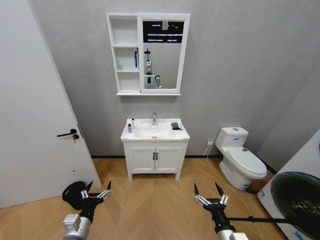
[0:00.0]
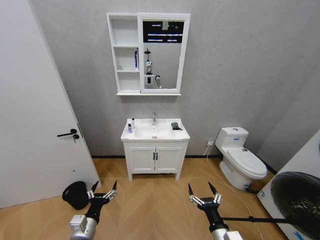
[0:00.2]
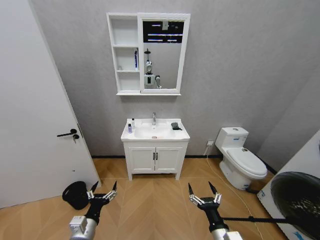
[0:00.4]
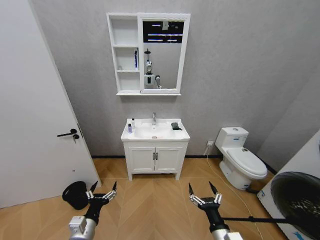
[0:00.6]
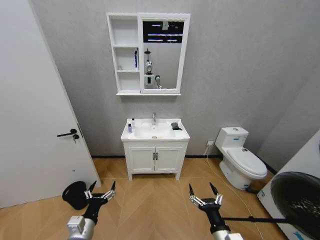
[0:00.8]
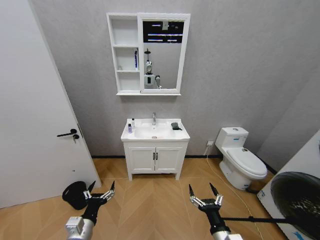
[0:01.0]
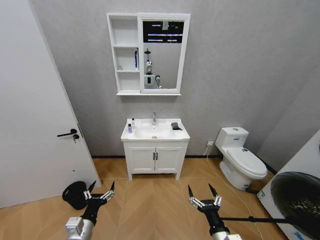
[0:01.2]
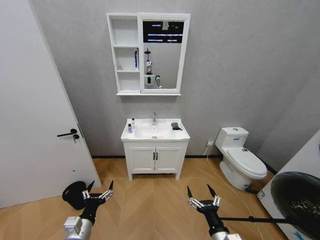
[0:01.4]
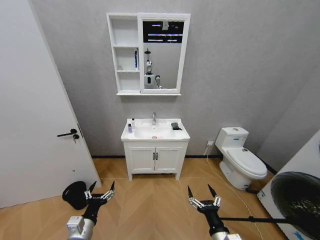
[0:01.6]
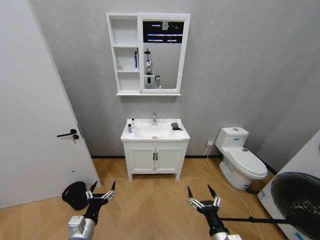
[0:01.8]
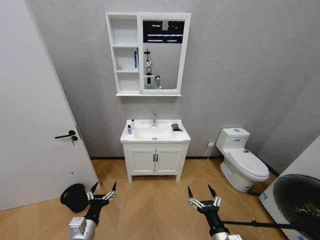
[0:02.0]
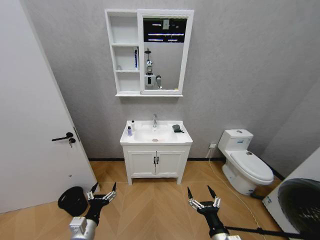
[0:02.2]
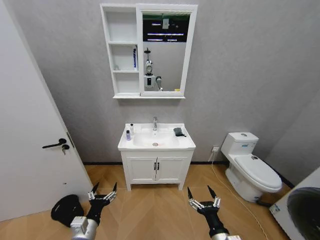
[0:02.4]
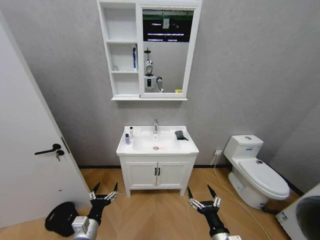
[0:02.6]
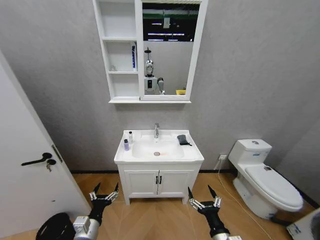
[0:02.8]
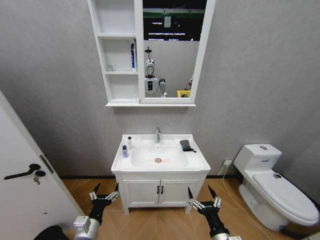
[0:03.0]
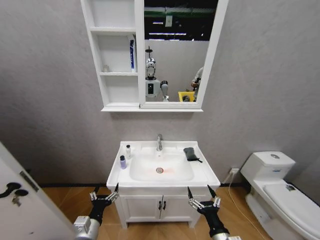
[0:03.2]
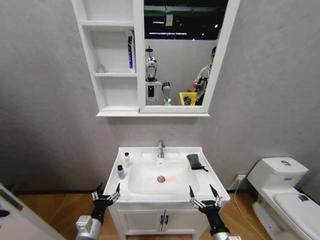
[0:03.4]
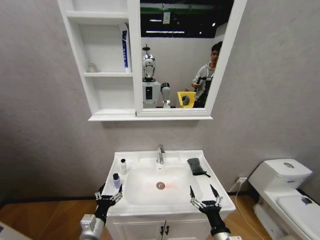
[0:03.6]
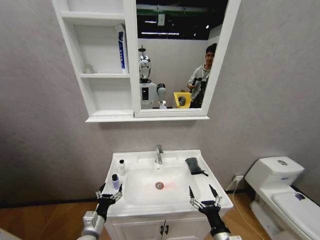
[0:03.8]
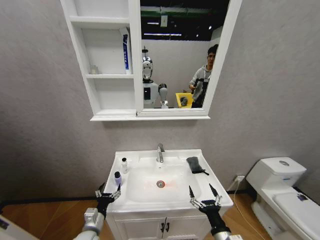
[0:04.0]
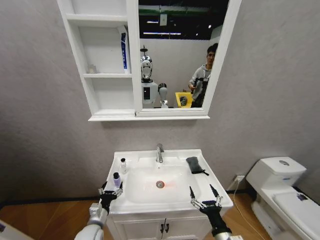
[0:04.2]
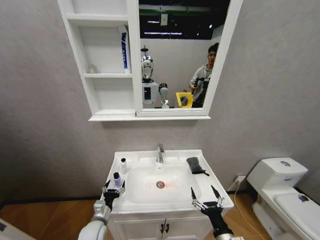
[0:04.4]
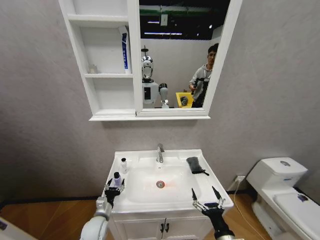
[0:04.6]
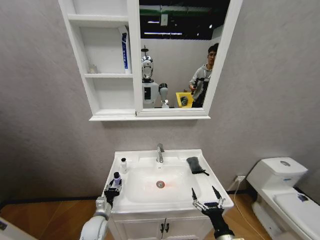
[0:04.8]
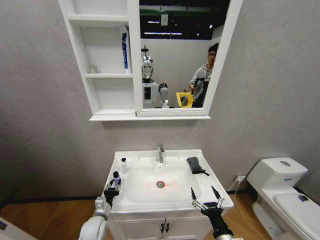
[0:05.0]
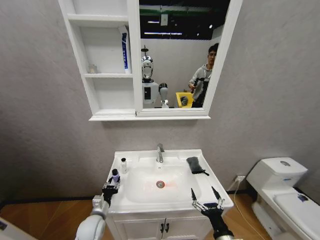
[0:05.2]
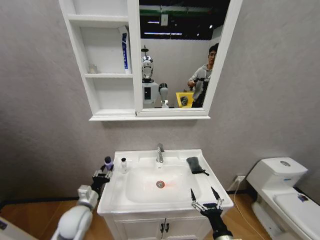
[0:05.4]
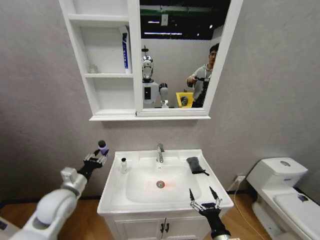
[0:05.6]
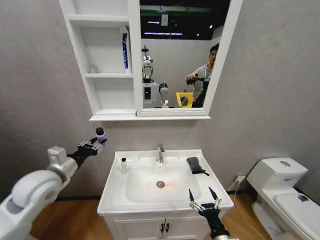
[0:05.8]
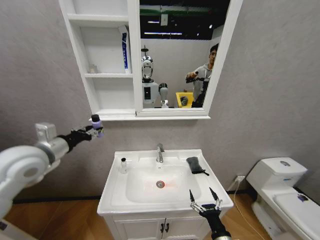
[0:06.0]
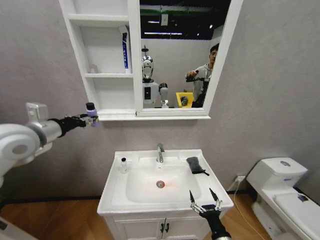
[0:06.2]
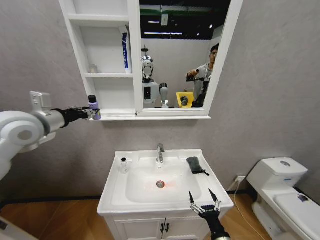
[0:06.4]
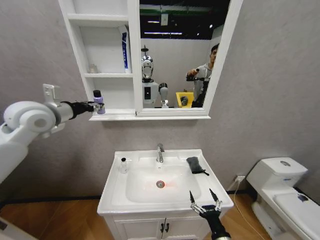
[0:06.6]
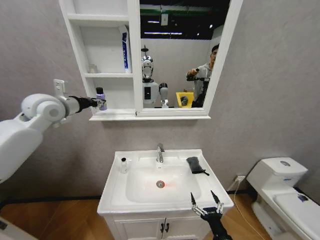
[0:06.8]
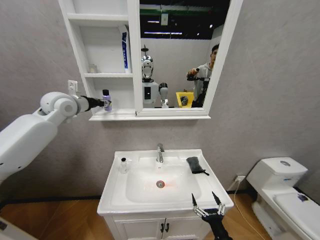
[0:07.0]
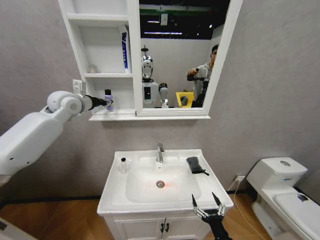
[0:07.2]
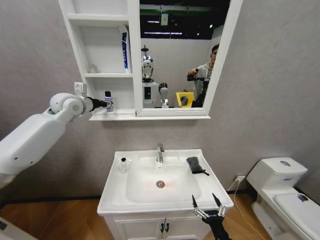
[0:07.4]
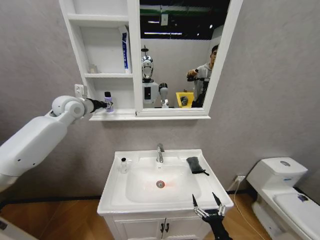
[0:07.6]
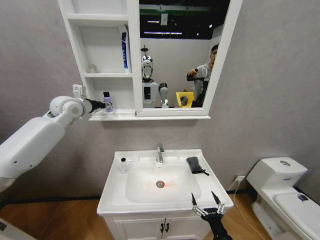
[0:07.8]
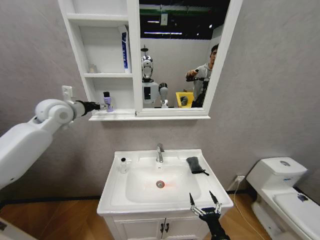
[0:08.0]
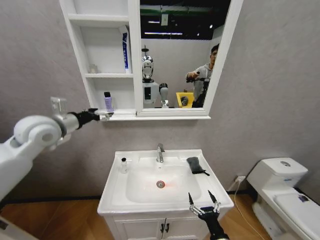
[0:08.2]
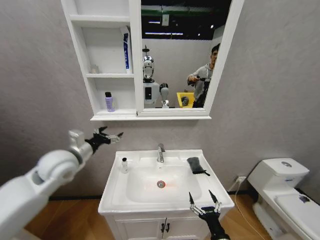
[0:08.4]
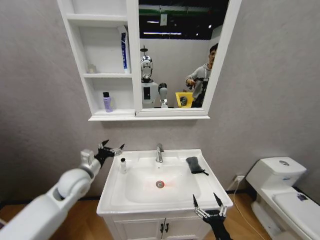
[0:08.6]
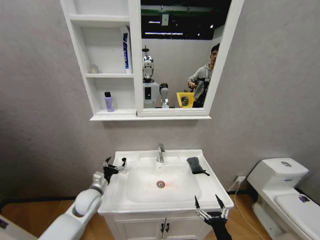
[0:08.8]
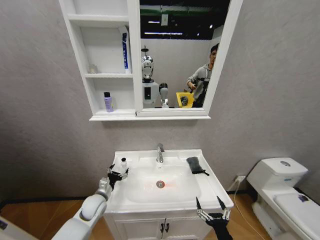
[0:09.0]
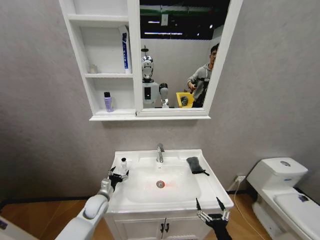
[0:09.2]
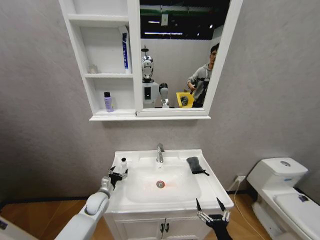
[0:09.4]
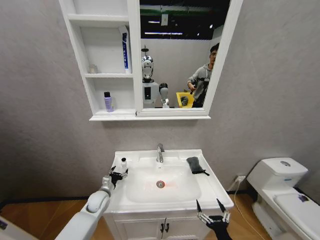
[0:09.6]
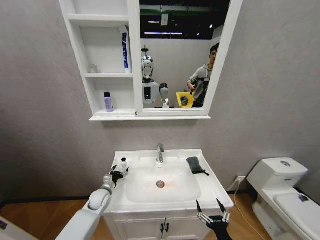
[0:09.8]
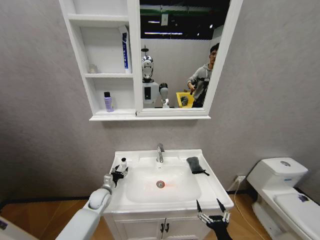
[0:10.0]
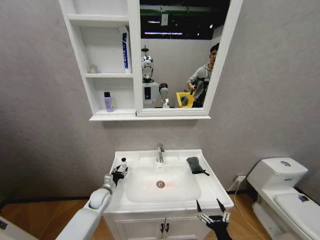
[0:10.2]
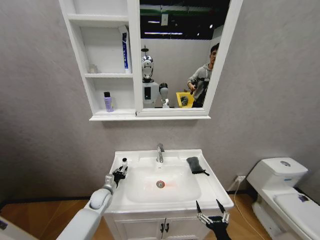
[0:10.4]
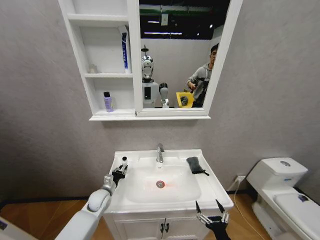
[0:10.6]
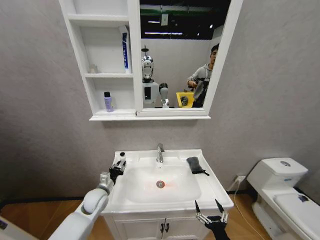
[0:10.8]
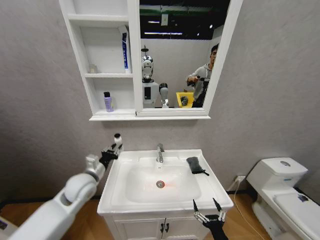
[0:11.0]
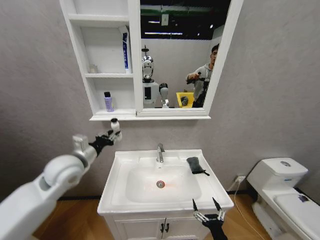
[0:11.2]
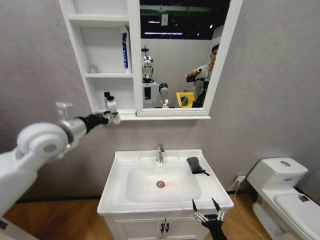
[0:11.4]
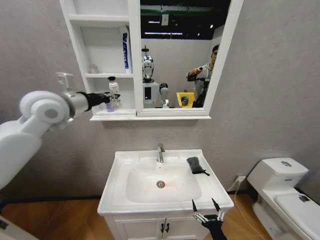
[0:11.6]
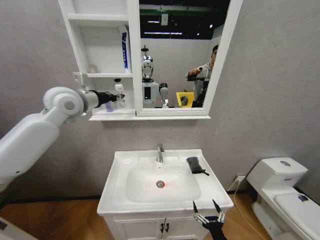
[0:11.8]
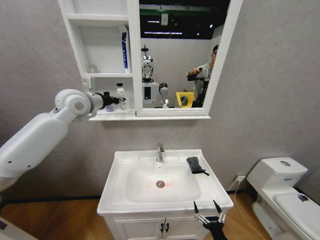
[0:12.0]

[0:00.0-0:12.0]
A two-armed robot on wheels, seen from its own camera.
Task of the whole recording: Move facial cleanser and shampoo from washbasin to cabinet, then wipe washbasin with towel.
0:03.0 to 0:04.4: The left gripper moves forward and downward, some 10 cm.
0:04.4 to 0:06.0: The left gripper is displaced upward by about 35 cm, and closes its fingers.
0:06.0 to 0:07.6: The left gripper moves forward and upward, roughly 20 cm.
0:07.6 to 0:09.0: The left gripper travels downward by roughly 40 cm, and opens up.
0:09.0 to 0:10.4: The left gripper moves forward, roughly 5 cm, and closes its fingers.
0:10.4 to 0:12.0: The left gripper moves upward, approximately 50 cm.

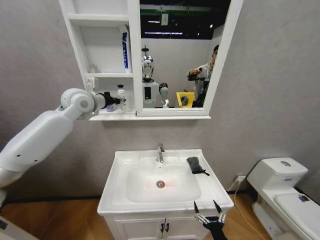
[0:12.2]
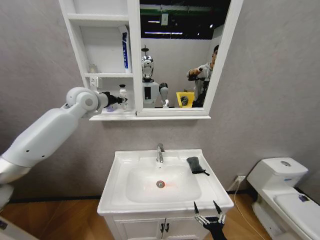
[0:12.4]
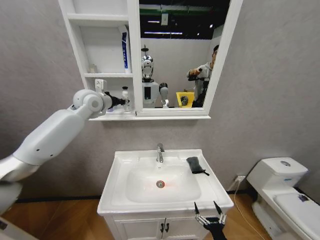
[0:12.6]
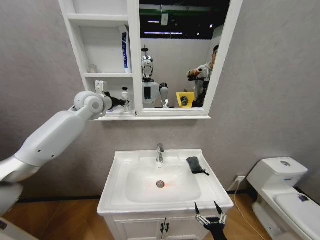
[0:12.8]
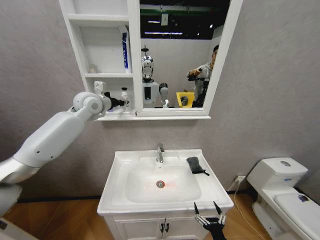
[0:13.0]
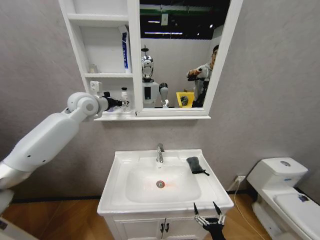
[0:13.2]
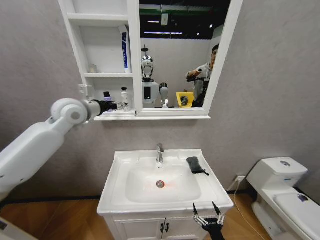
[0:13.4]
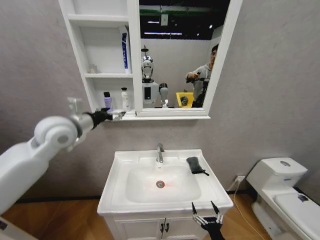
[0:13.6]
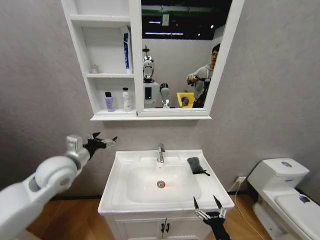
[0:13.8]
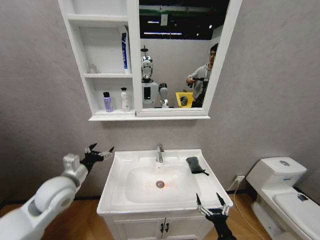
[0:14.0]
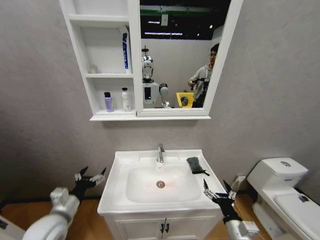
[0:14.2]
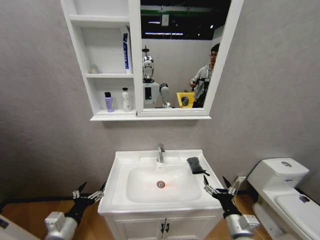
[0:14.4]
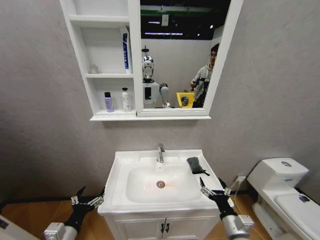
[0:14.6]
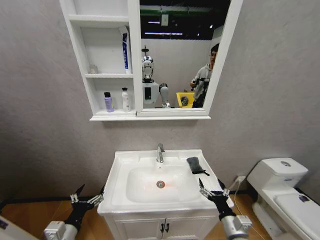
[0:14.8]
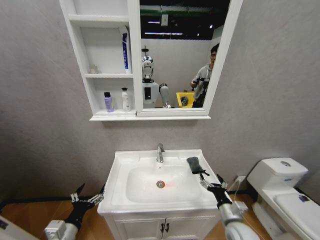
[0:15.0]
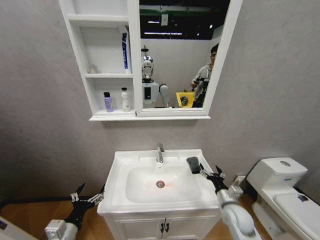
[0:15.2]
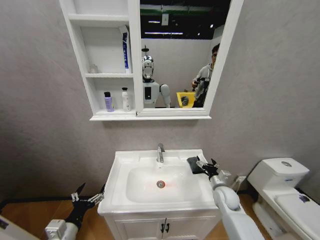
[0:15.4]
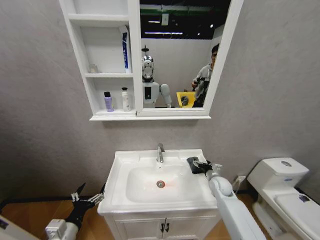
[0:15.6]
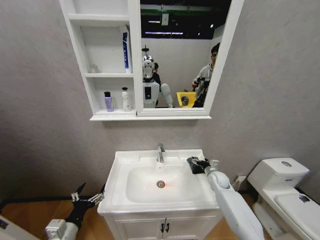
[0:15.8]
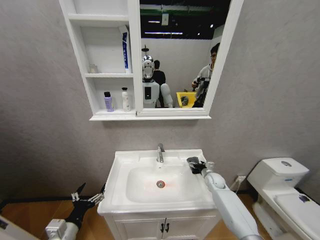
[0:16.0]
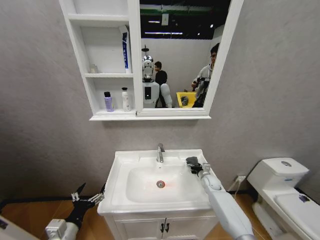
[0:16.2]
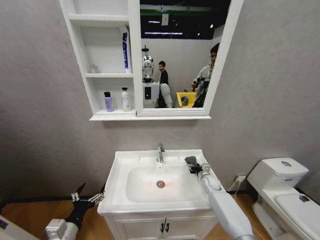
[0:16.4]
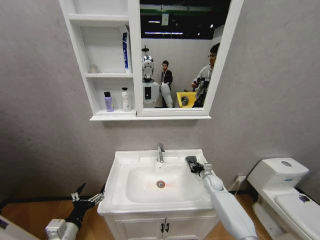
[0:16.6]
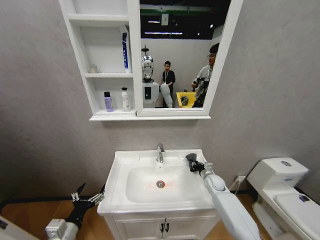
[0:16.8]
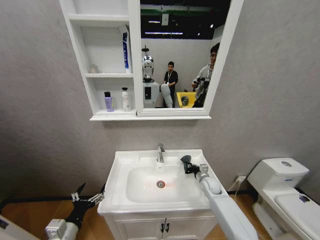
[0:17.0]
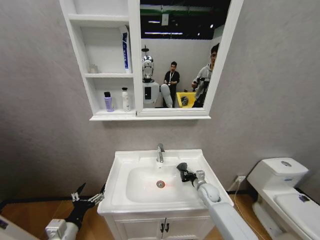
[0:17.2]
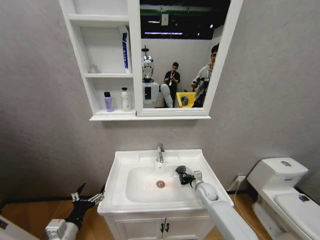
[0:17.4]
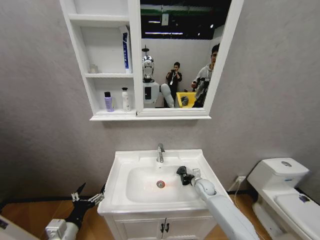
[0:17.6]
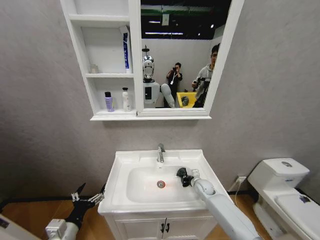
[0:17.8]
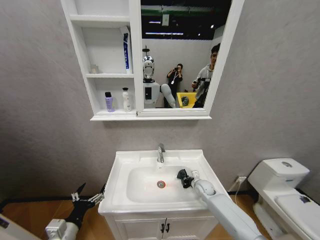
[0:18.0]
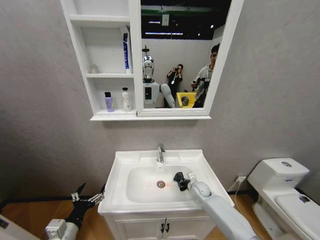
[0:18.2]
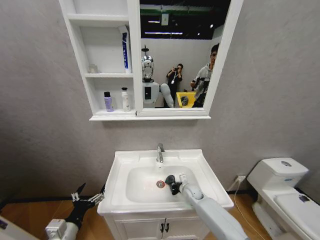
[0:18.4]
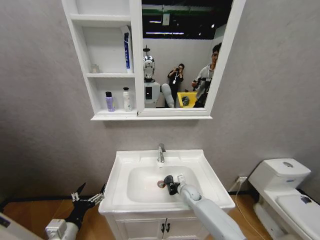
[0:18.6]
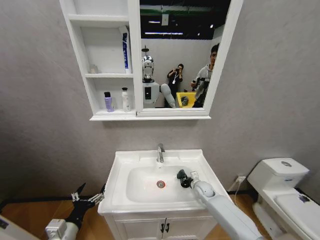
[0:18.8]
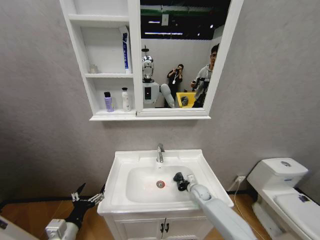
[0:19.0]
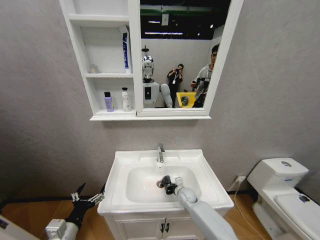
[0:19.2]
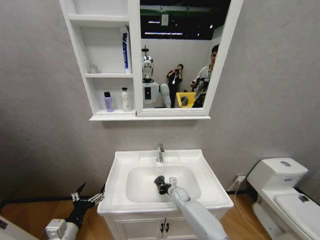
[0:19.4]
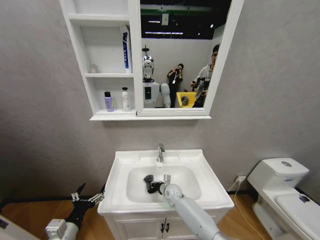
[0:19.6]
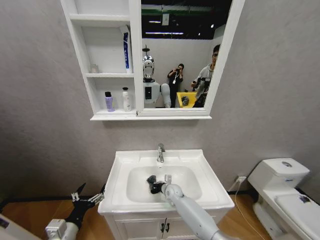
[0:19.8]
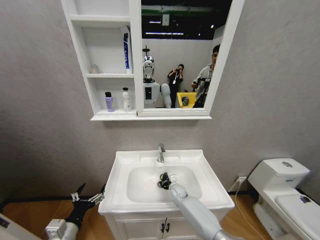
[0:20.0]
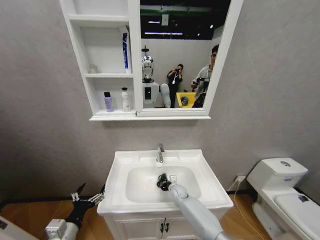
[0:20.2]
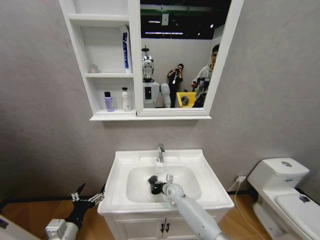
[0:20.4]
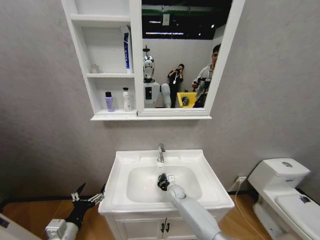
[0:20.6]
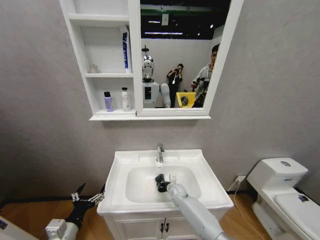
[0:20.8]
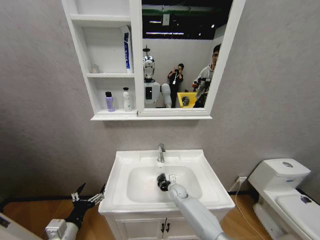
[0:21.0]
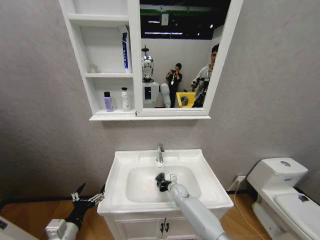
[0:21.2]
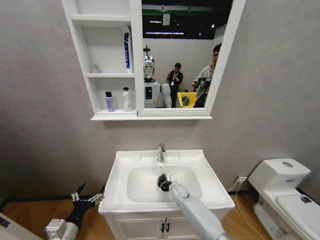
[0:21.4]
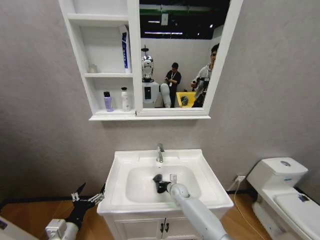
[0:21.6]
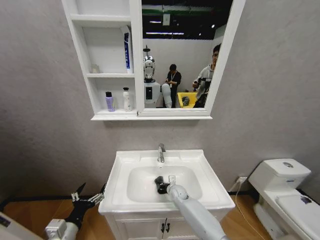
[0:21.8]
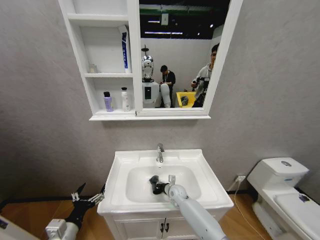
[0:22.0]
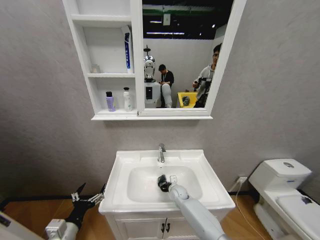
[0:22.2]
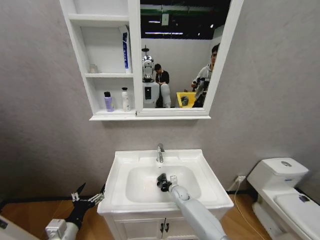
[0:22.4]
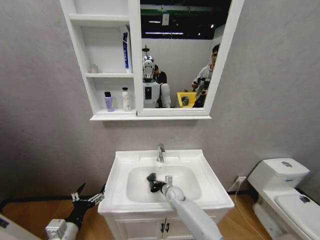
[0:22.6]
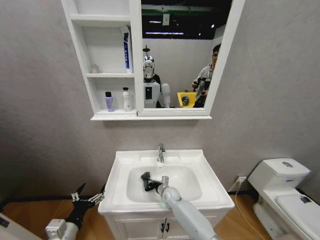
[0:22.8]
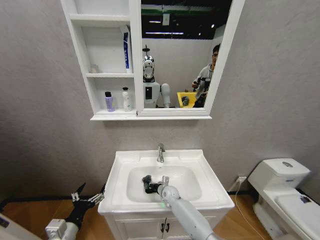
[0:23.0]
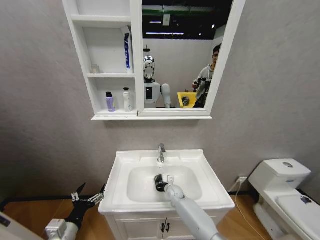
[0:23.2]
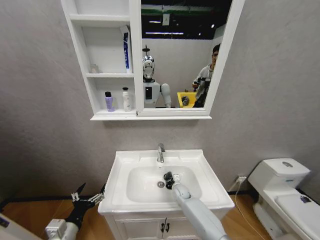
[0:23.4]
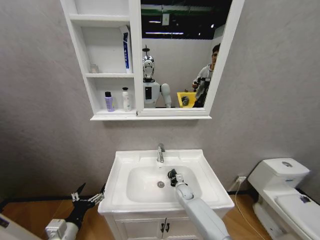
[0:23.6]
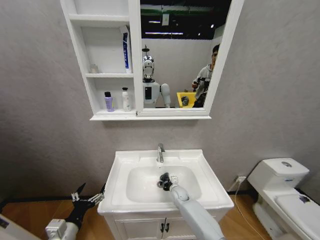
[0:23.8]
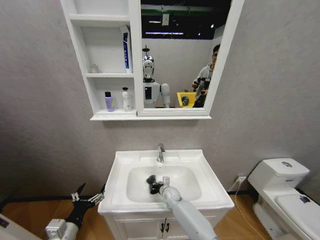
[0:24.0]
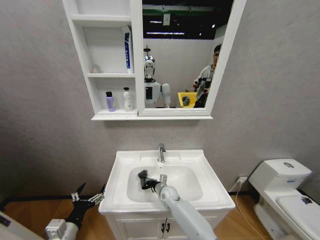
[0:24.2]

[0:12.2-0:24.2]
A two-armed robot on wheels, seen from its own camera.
Task of the whole recording: Move facial cleanser and shampoo from washbasin to cabinet, then wipe washbasin with towel.
0:12.2 to 0:13.8: The left gripper is displaced downward and backward by some 25 cm, and opens.
0:13.8 to 0:15.2: The left gripper is displaced downward and backward by roughly 25 cm; the right gripper shifts roughly 15 cm forward.
0:15.2 to 0:16.6: The right gripper travels forward by approximately 20 cm, and closes.
0:16.6 to 0:18.2: The right gripper goes some 5 cm to the left, and closes its fingers.
0:18.2 to 0:19.8: The right gripper goes left and right, approximately 15 cm each way, reversing 2 times.
0:21.2 to 0:22.6: The grippers move only a little.
0:22.6 to 0:24.2: The right gripper travels to the right and back again, some 5 cm each way.
